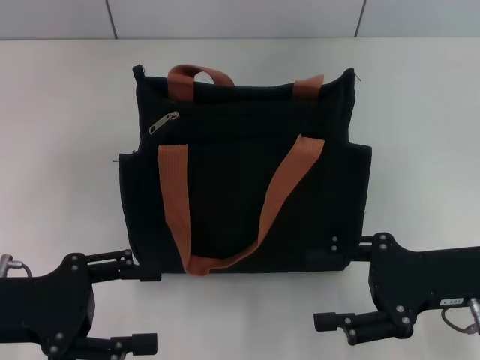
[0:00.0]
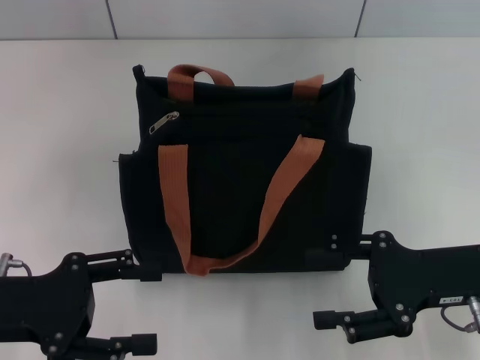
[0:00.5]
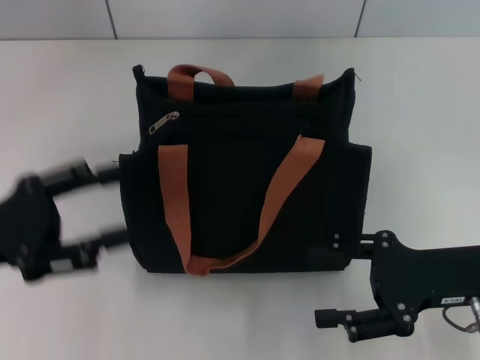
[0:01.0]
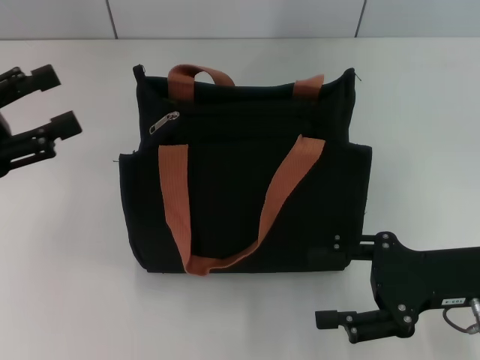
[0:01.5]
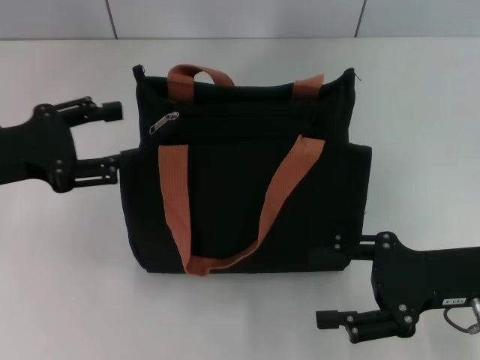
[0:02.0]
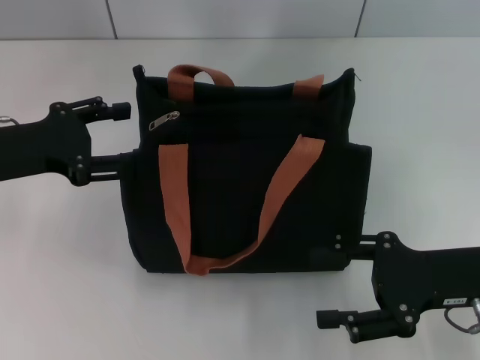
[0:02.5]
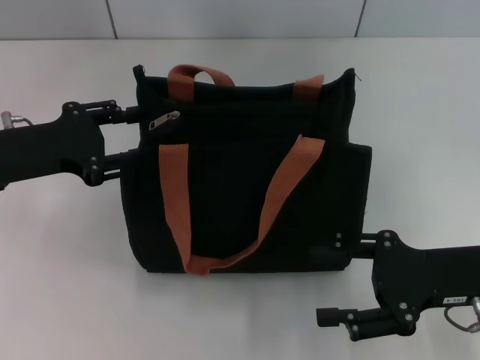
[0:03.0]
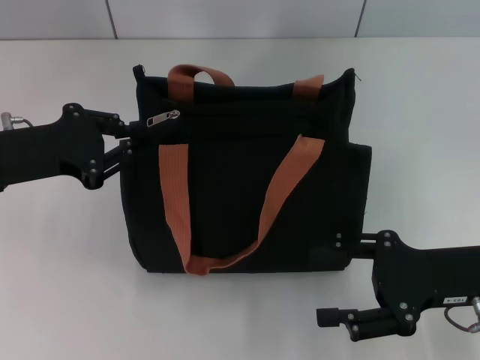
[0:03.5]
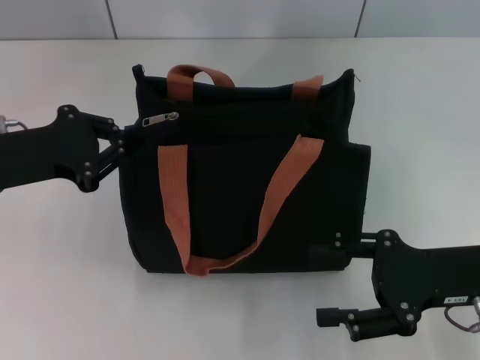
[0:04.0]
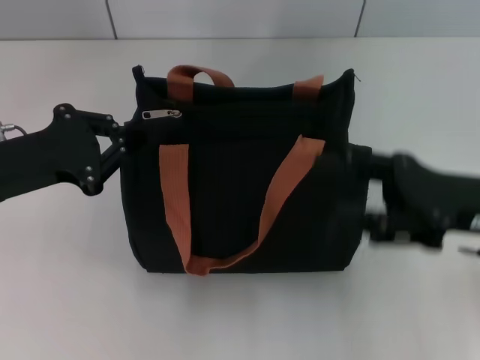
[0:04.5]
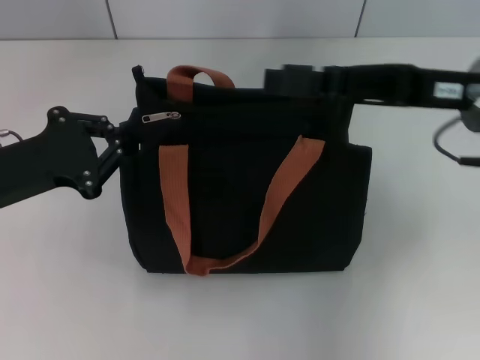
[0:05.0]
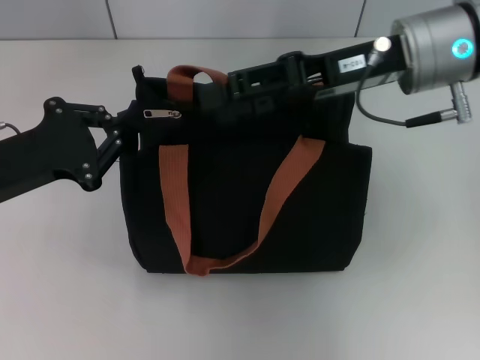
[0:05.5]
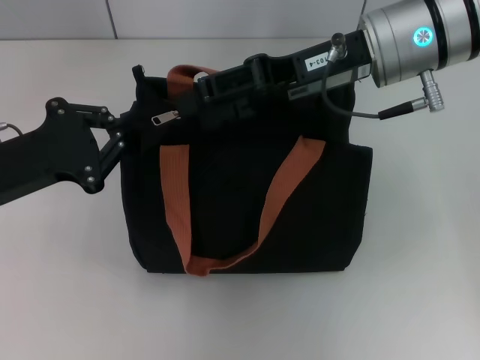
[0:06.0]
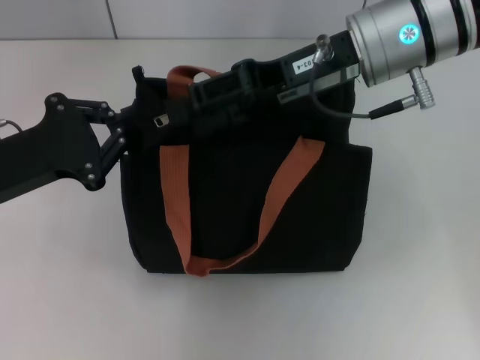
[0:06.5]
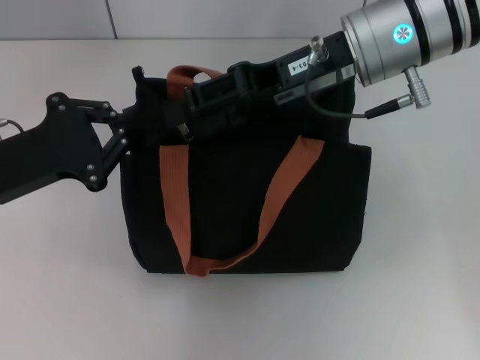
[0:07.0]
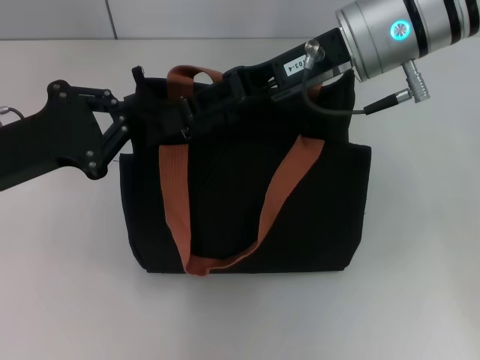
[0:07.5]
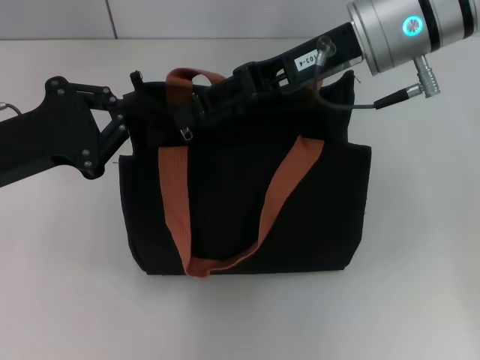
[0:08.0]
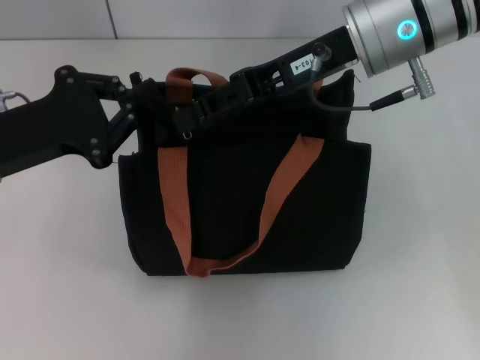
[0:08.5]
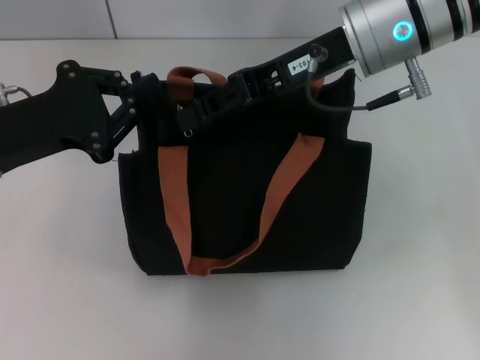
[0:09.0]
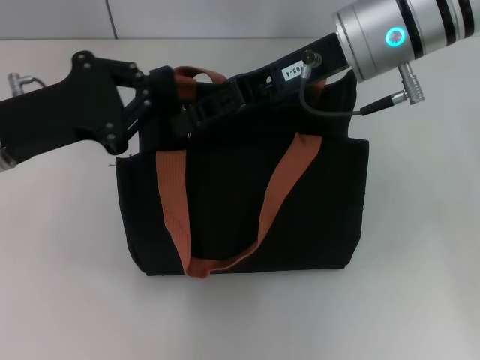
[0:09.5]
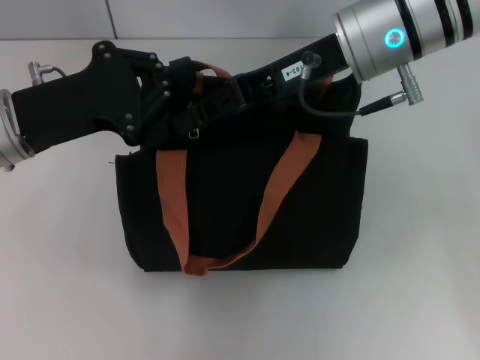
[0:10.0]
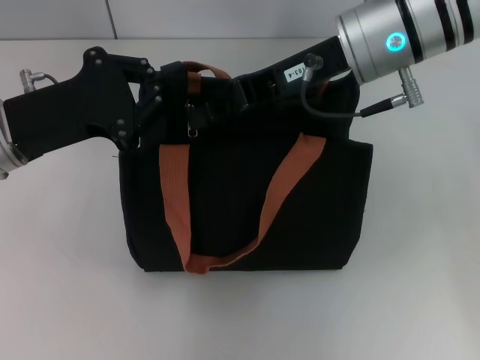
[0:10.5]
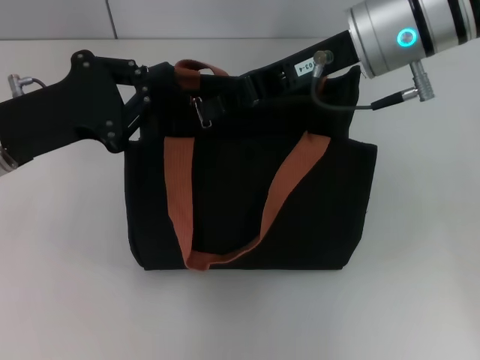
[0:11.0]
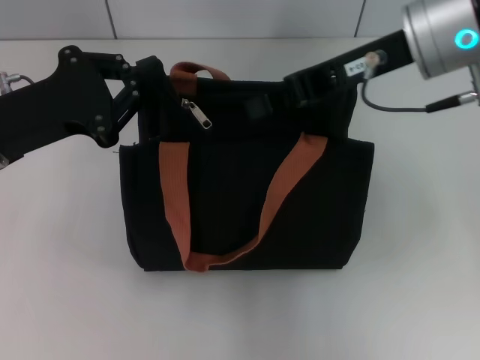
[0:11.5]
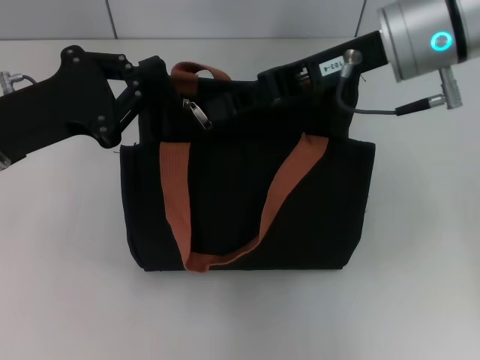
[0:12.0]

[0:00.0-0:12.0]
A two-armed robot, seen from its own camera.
0:00.0 to 0:02.0: The left gripper goes roughly 10 cm forward.
0:02.0 to 0:04.0: The left gripper closes its fingers.
0:04.0 to 0:06.0: The right gripper goes roughly 25 cm forward, upward and to the left.
0:06.0 to 0:08.0: The grippers move only a little.
0:08.0 to 0:10.0: The right gripper closes.
0:10.0 to 0:12.0: The grippers move only a little.

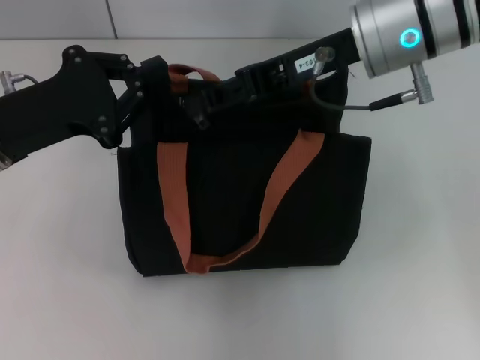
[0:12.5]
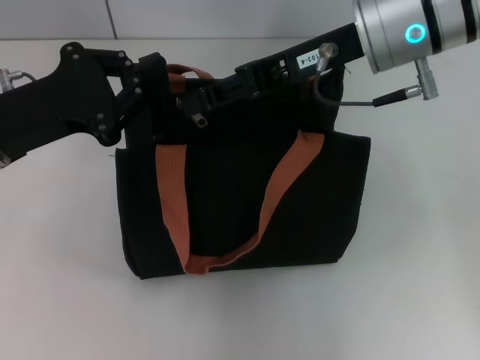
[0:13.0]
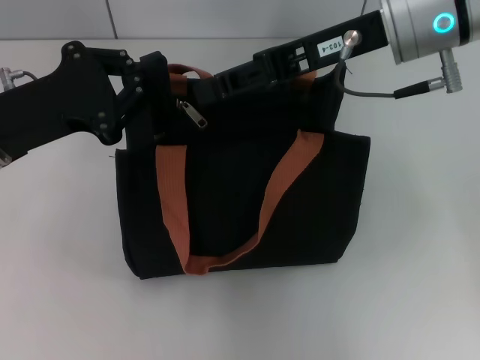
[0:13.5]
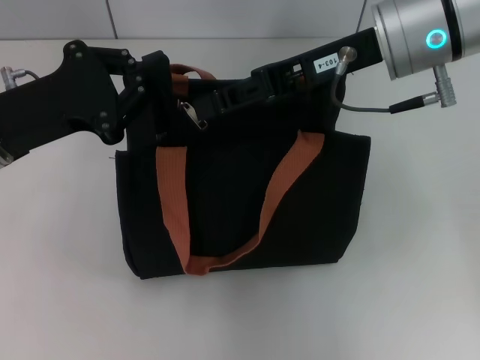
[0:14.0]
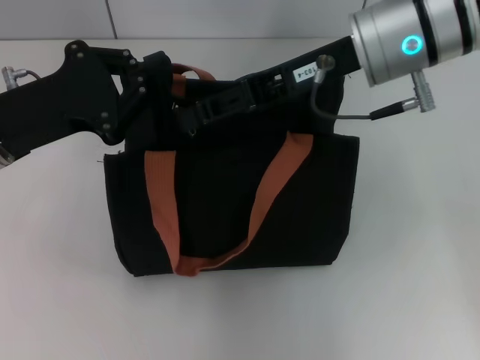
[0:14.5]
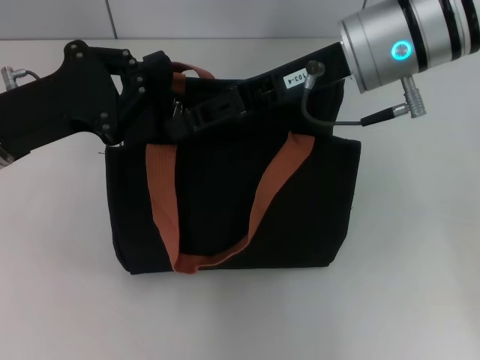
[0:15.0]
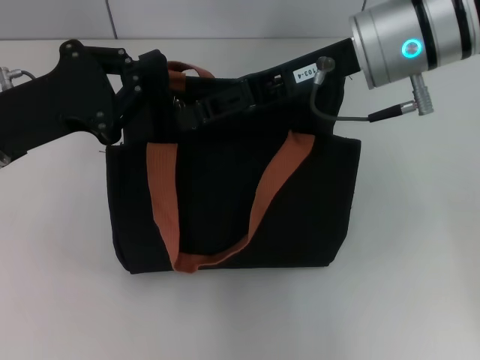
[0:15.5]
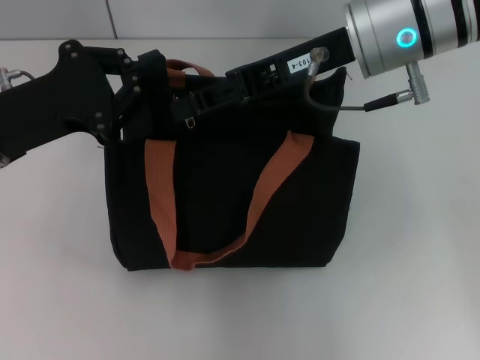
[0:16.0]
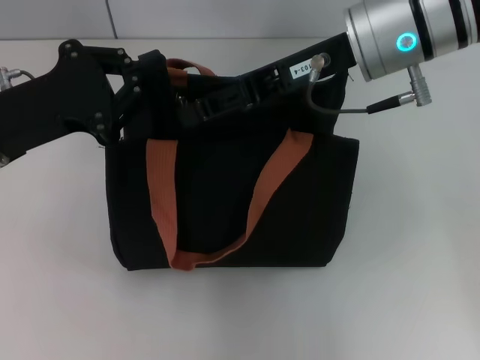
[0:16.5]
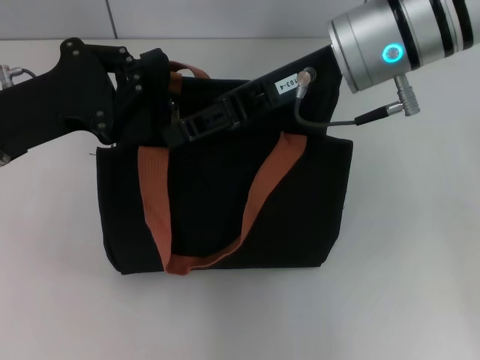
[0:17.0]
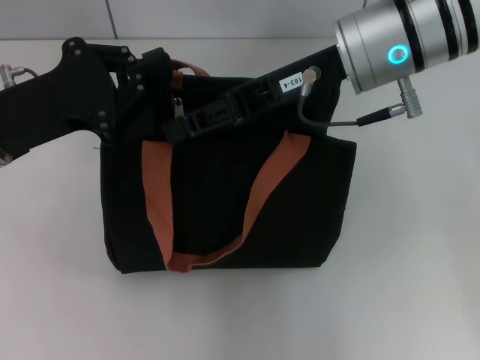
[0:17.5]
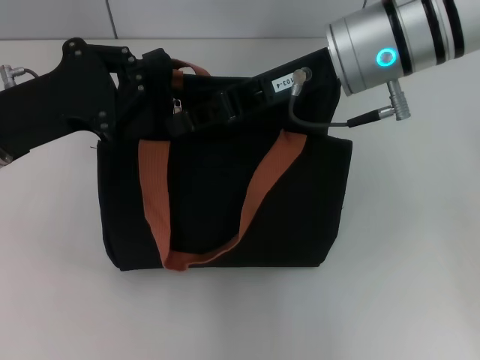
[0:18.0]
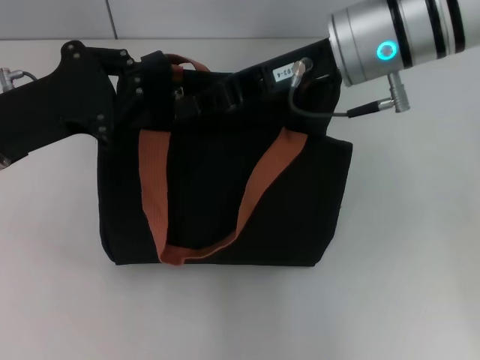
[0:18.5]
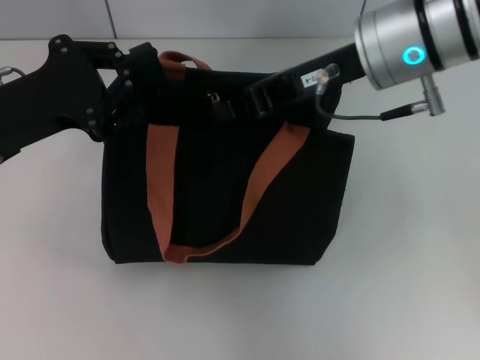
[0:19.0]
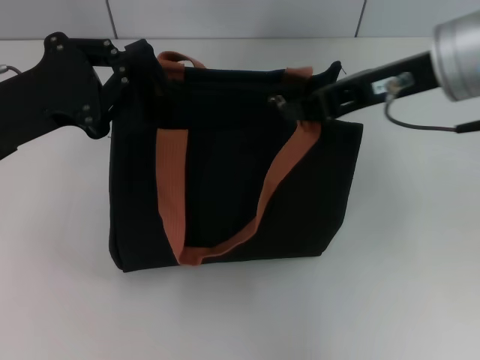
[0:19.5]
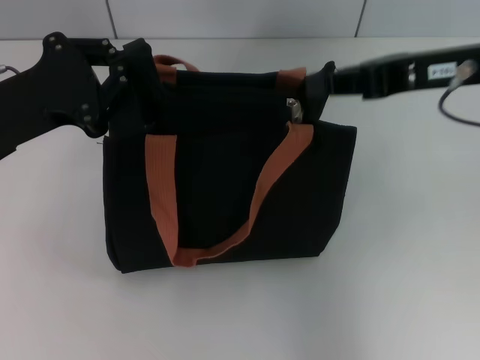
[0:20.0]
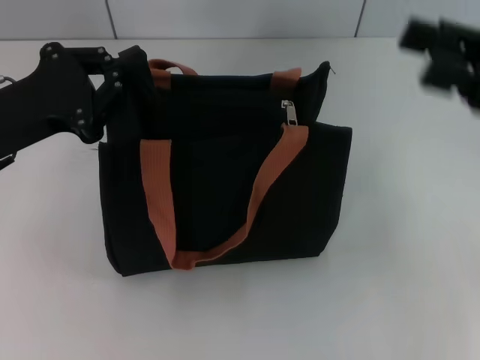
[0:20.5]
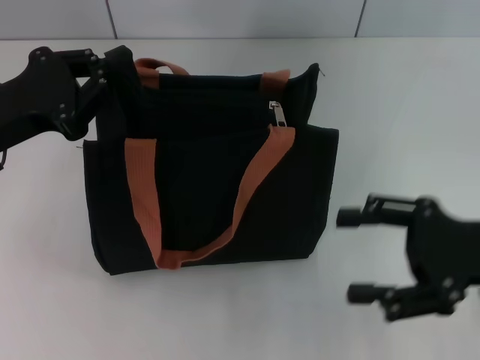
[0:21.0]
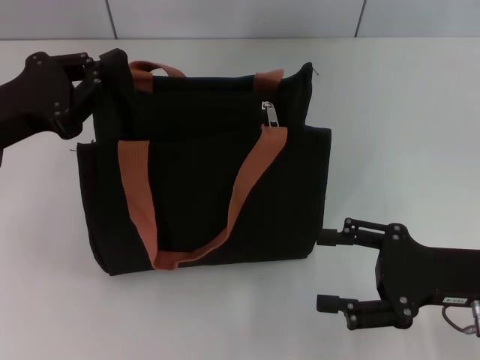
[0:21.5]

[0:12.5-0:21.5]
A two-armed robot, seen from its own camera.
Step, 0:12.5 to 0:19.5: Pull up the zipper with your right hand.
0:12.5 to 0:17.0: The grippers make only small movements.
0:17.0 to 0:19.5: The right gripper is displaced to the right by some 5 cm, and closes up.
0:19.5 to 0:21.5: The right gripper moves downward, backward and to the right, some 20 cm, and opens.

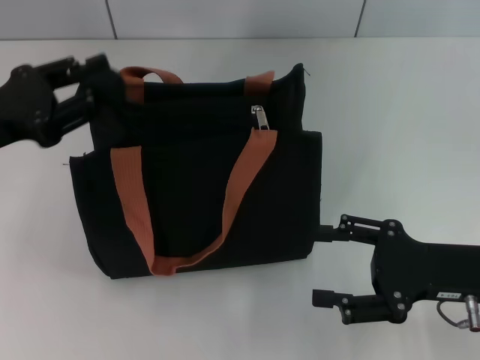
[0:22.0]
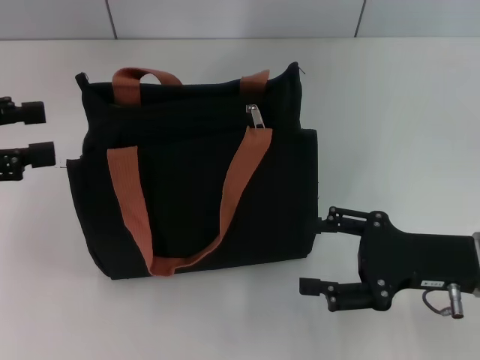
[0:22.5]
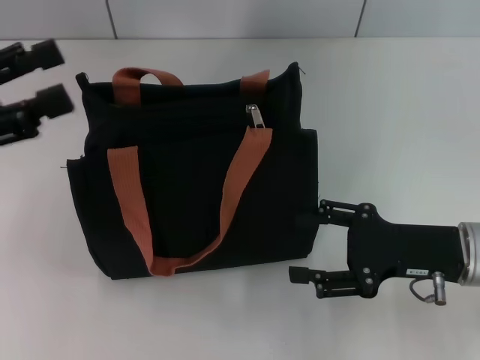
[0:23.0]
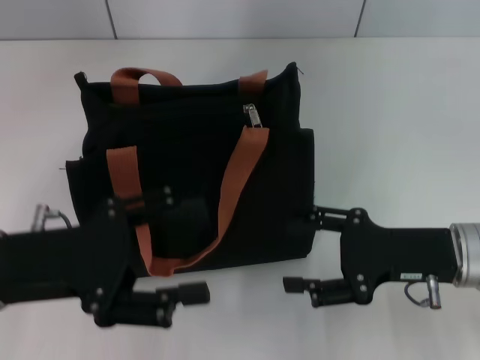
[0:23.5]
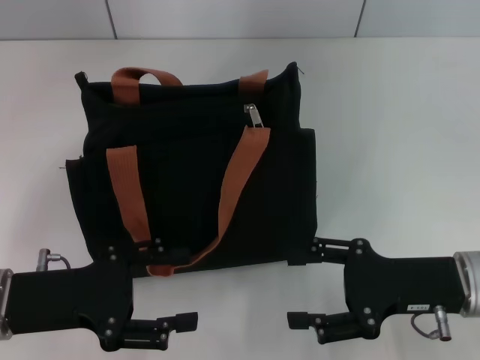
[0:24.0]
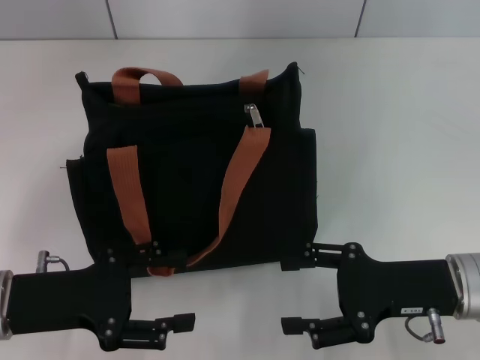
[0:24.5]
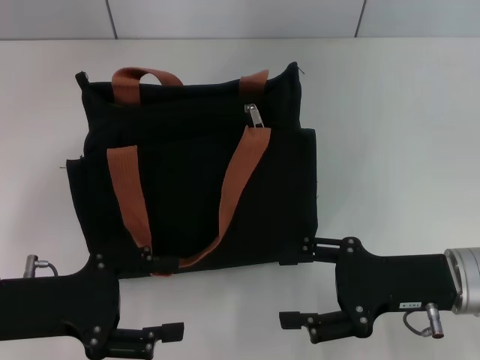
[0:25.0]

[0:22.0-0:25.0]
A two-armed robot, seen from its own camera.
0:22.0 to 0:23.5: The left gripper heads backward and to the right, covering some 10 cm, and opens its fingers.
0:23.5 to 0:25.0: The left gripper moves approximately 5 cm.

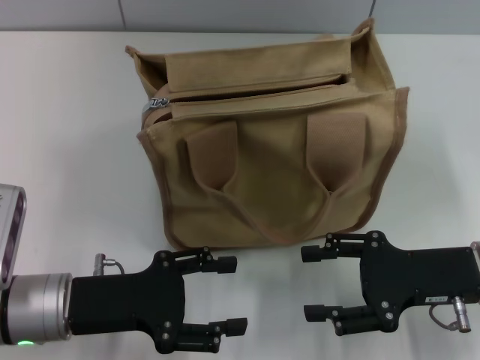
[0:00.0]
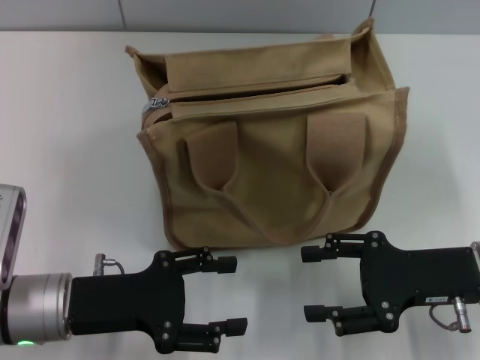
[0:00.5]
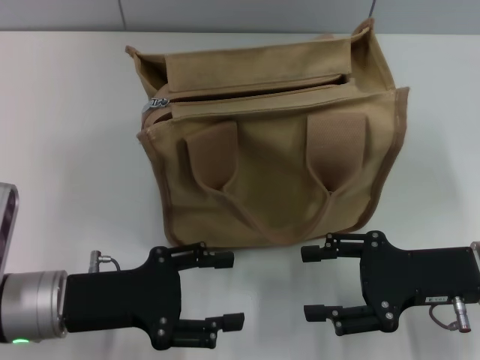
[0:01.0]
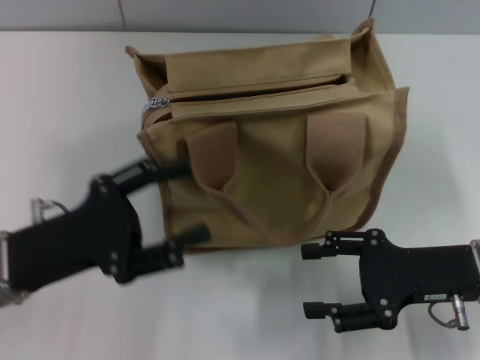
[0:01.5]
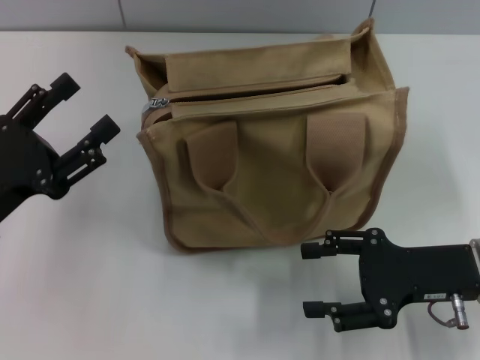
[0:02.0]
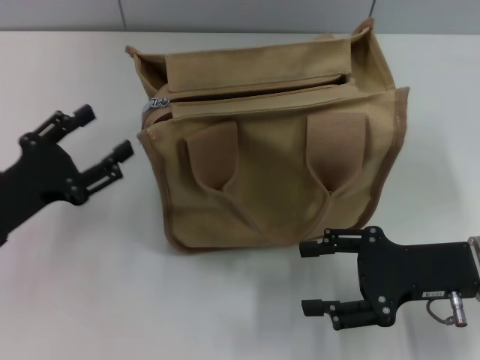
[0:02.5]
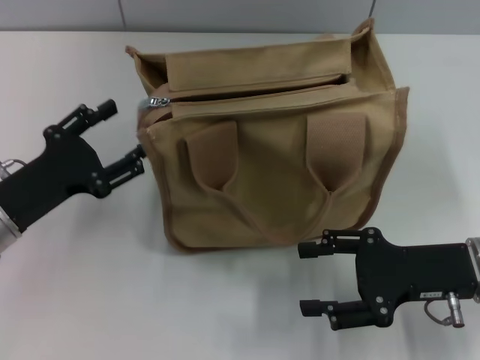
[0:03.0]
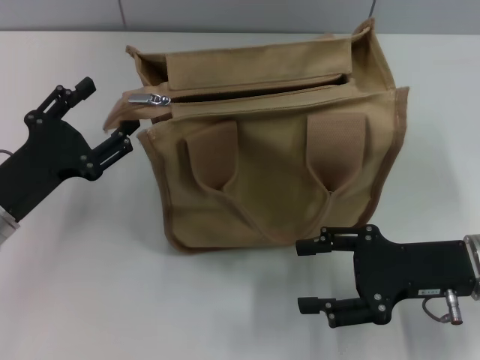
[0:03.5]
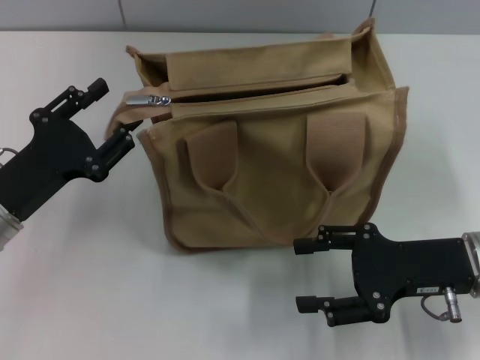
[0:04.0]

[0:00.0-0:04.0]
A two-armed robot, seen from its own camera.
0:00.0 to 0:02.0: The left gripper is displaced to the left by some 5 cm.
0:02.0 to 0:04.0: The grippers make only small movements.
